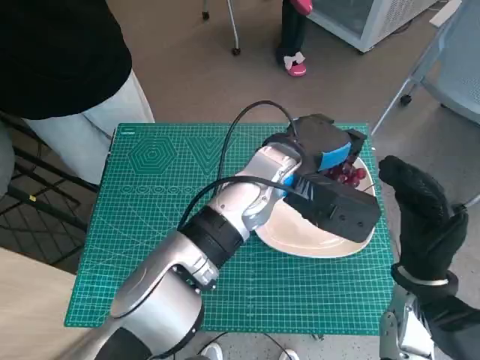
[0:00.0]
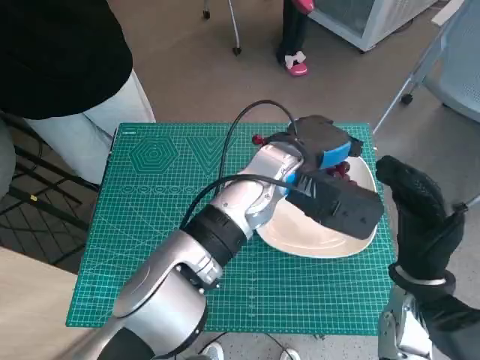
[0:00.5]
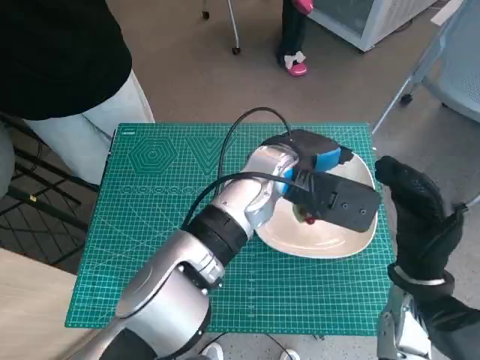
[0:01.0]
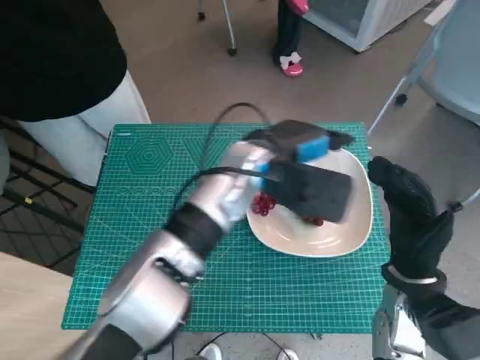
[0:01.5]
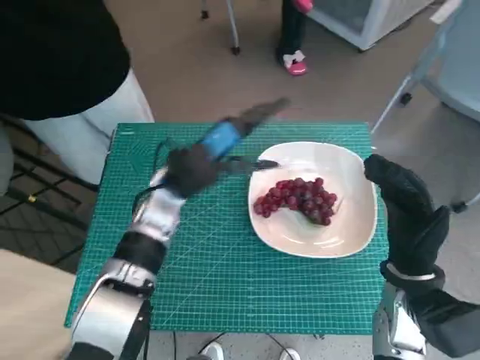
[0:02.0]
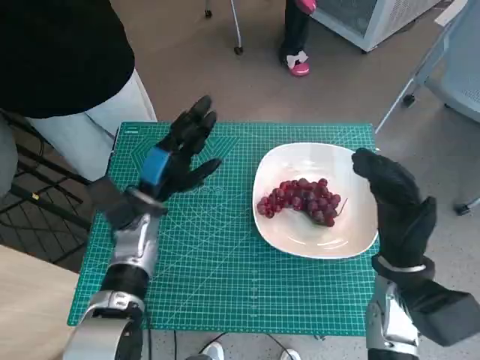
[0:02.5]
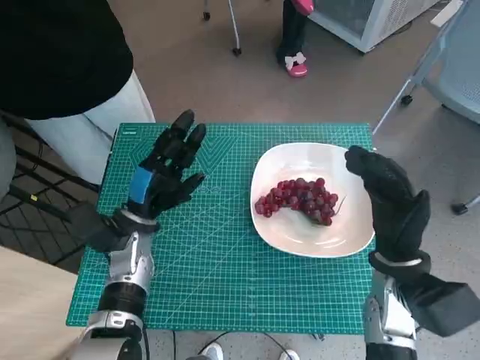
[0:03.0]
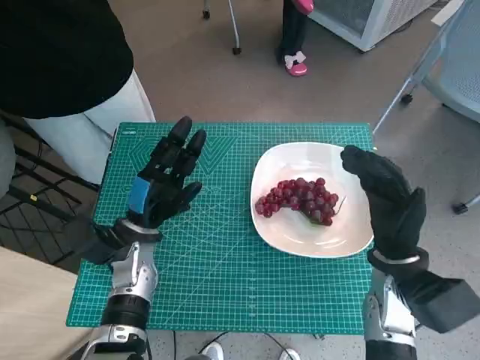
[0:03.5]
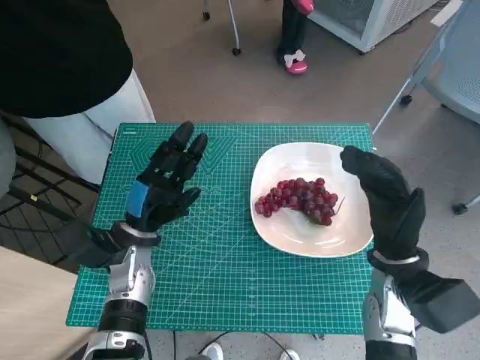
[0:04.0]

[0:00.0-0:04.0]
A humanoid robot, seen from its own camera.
Task of the whole recording: Pick up the grapes and put them on the plate.
0:00.0 to 0:02.0: The left hand is displaced to the left by approximately 10 cm.
0:02.0 to 0:04.0: The left hand shifts roughly 15 cm downward, to the left and backward.
